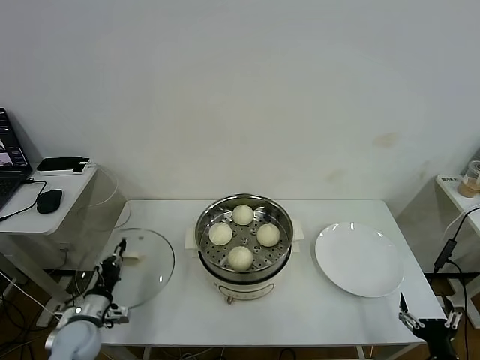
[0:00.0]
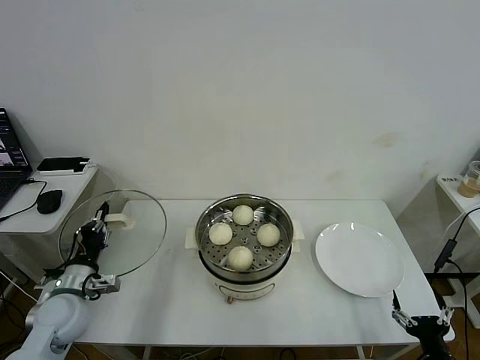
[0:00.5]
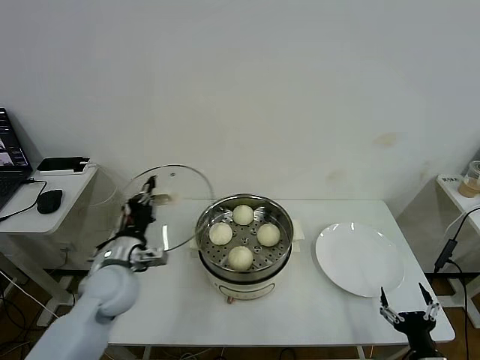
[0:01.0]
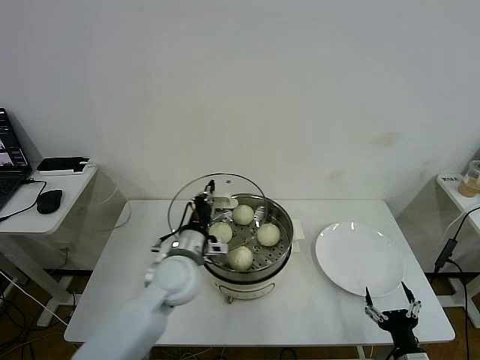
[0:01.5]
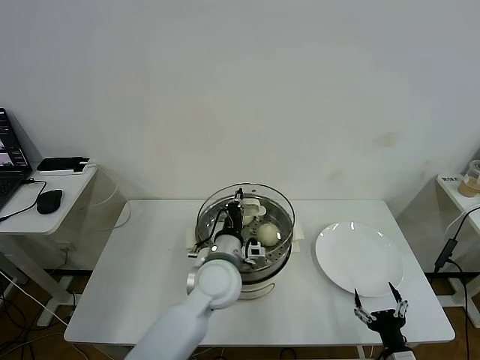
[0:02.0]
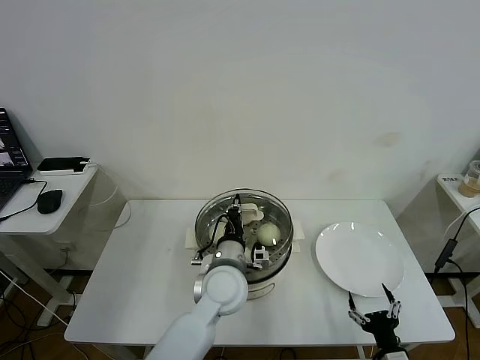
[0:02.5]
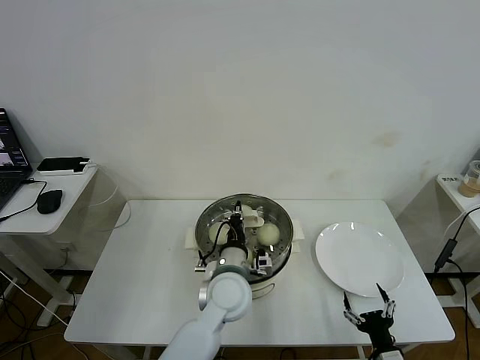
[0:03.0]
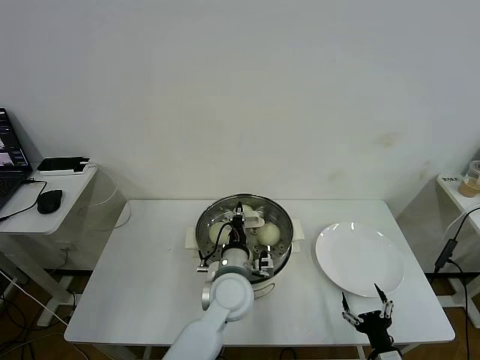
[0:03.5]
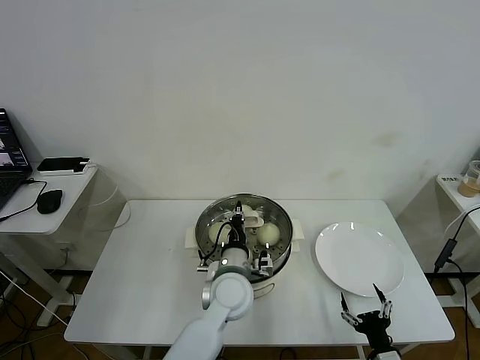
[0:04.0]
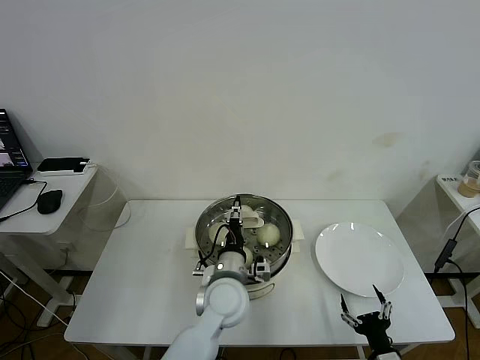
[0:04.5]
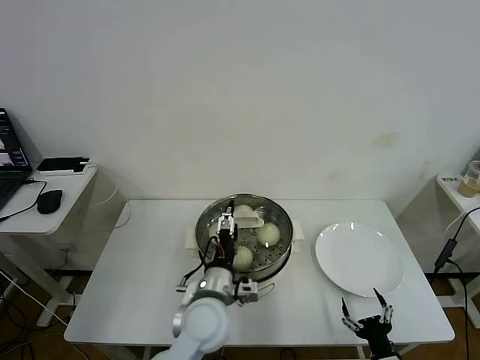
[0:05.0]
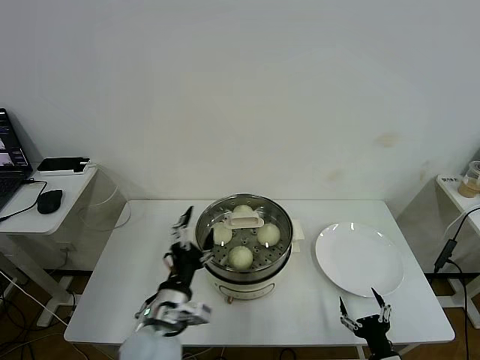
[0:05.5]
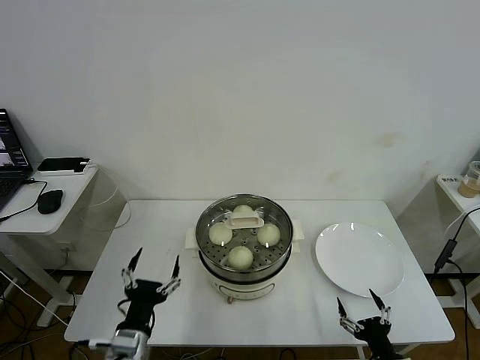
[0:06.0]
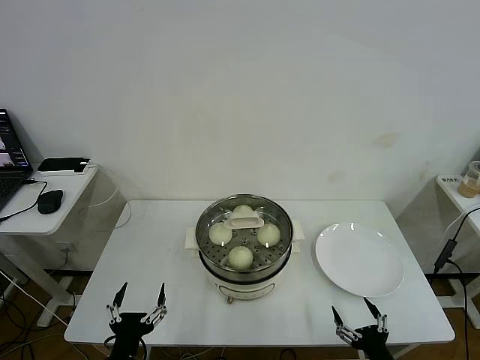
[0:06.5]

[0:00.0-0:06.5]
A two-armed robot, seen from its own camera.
Task of the whole recording: take steamed baozi put them in steamer then cover it.
Step, 0:00.0 to 0:04.5: Place the pot lid on the steamer with left gripper.
0:00.0 to 0:02.0: The right gripper heads to the left, covering approximately 5 cm; the left gripper shifts approximately 35 cm to the right and upward.
0:02.0 to 0:04.5: The left gripper opens its fingers.
0:04.5 to 0:06.5: The left gripper goes some 30 cm backward and to the left, and opens its fingers.
